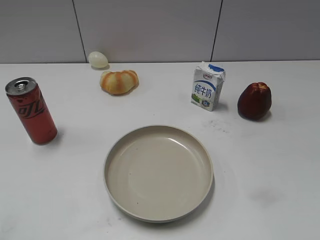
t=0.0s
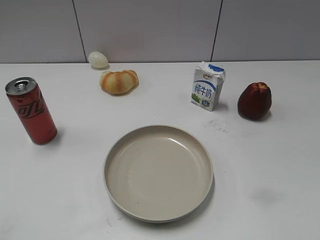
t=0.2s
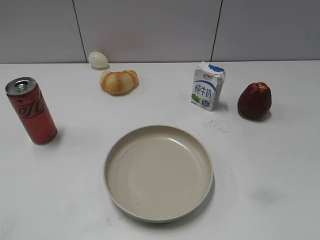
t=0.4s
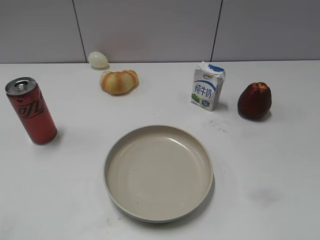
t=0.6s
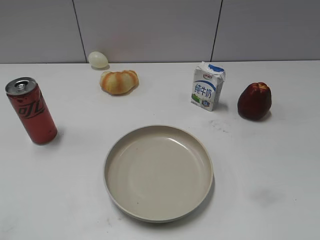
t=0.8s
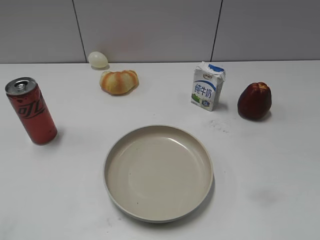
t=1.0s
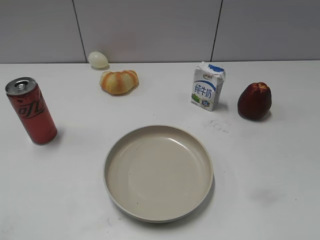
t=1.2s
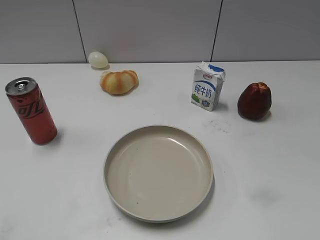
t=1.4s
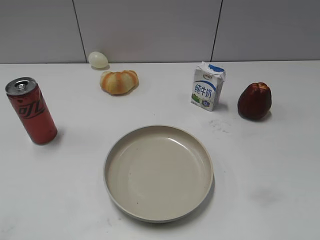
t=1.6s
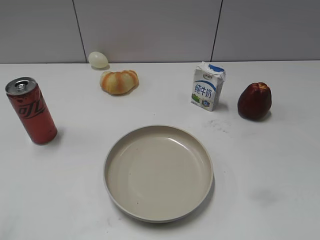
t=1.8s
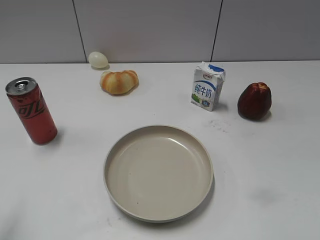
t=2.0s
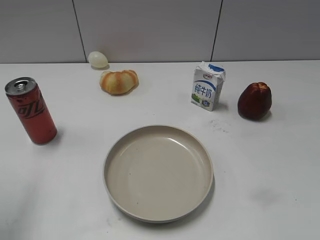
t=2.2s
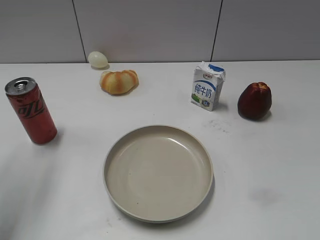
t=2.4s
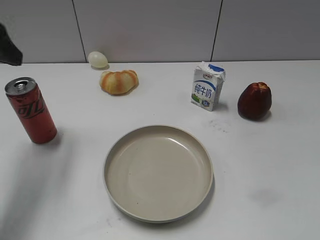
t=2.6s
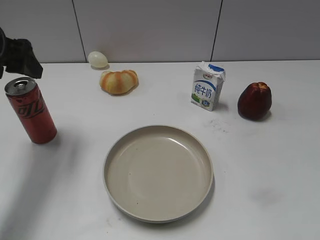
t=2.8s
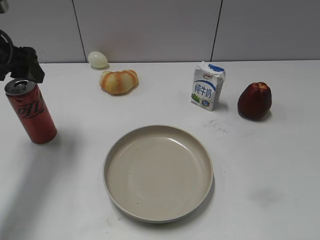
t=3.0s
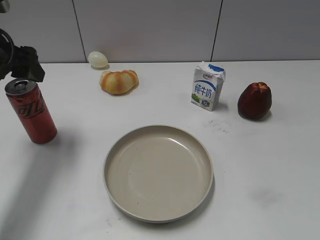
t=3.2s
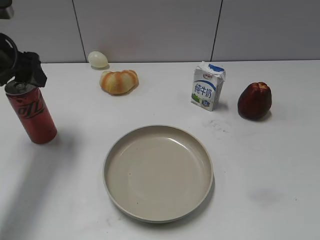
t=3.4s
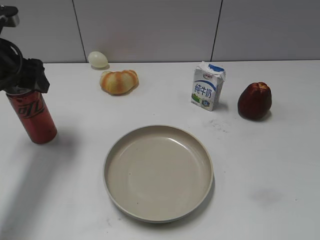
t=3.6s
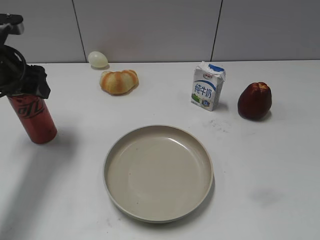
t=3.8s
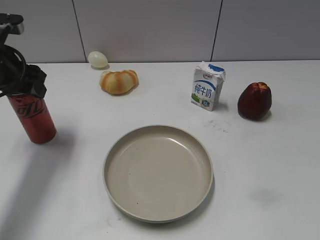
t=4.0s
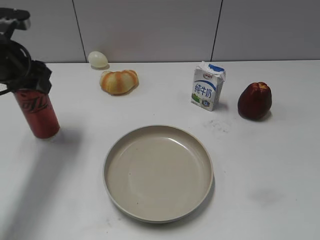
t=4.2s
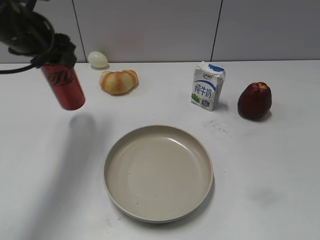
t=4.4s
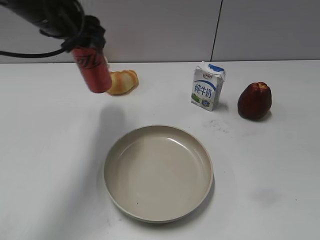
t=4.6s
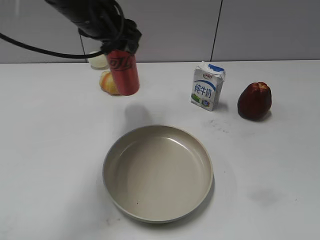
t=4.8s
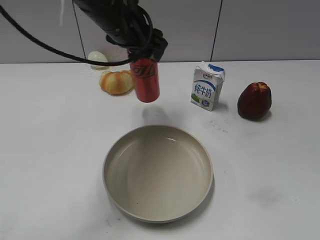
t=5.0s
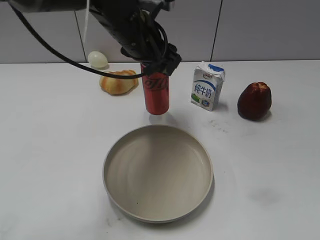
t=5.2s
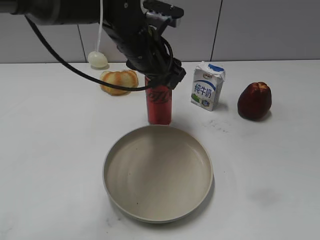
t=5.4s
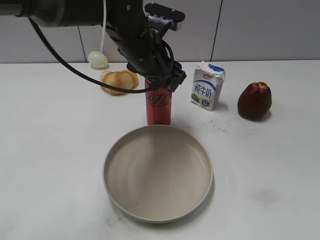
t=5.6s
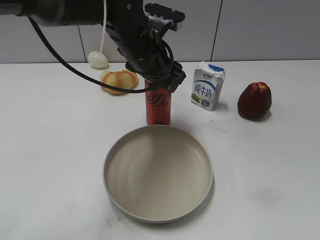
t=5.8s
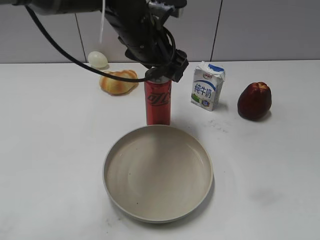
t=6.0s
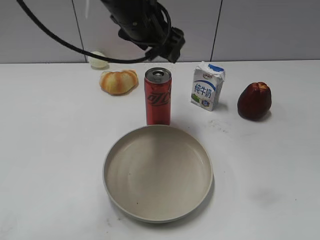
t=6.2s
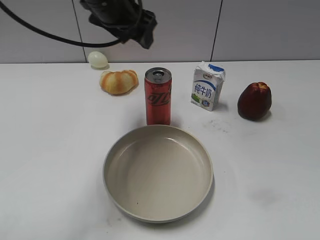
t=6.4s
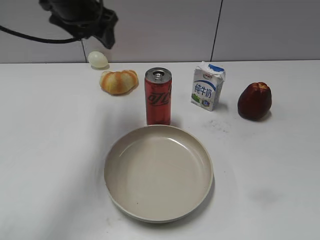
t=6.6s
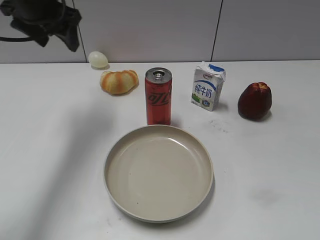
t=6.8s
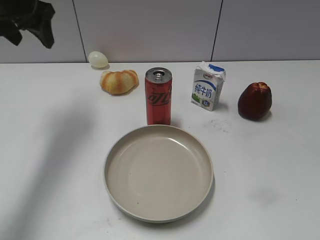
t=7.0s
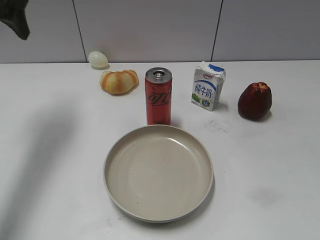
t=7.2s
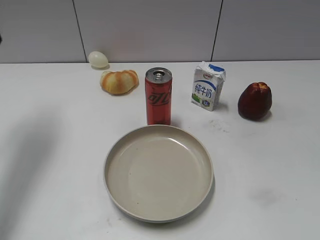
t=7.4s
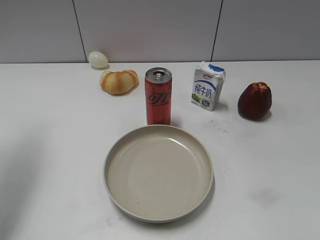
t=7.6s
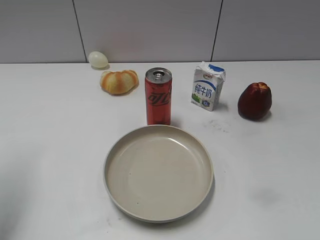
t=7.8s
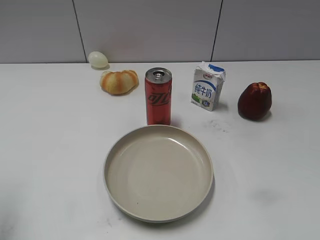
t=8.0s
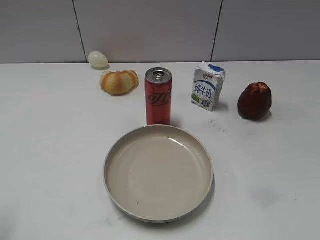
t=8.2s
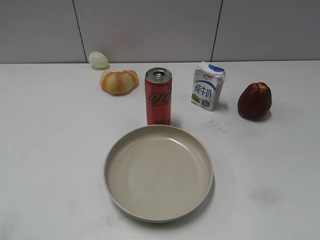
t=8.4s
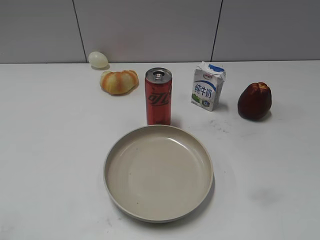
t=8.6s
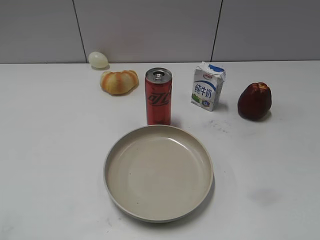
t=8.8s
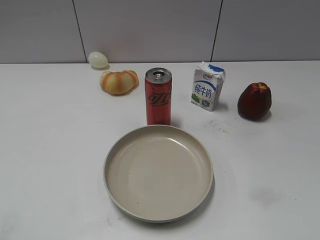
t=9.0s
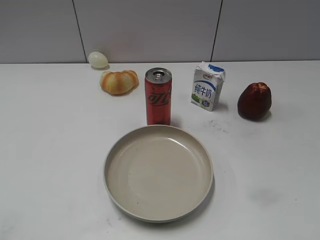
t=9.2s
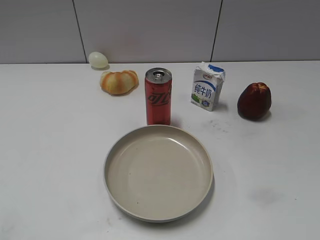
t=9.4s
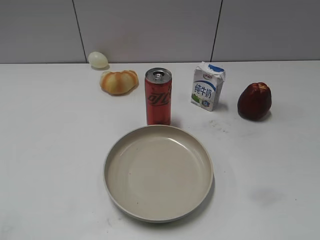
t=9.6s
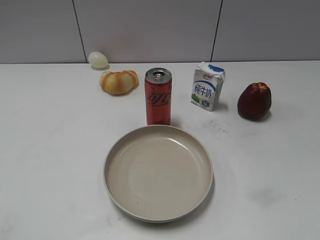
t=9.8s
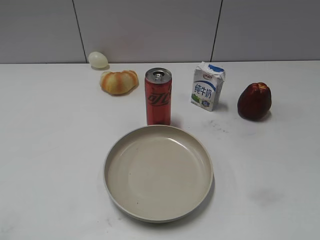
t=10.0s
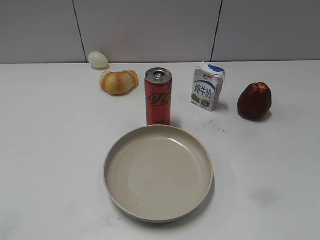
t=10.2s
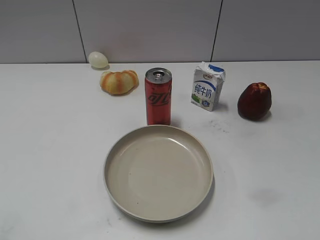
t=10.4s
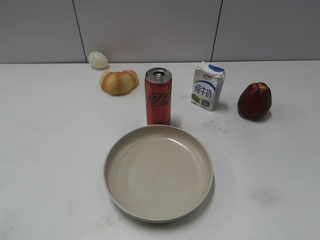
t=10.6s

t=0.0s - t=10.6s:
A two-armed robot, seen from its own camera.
Step, t=1.6s - t=4.0s: Grasp the cola with left gripper.
Step, t=4.2s - t=6.0s: Place the cola on the table with left gripper.
t=1.6s - t=3.0s: The left gripper travels forward by some 30 cm, and opens up.
t=3.0s - t=4.6s: The left gripper goes roughly 15 cm to the right, and closes up.
t=4.6s - t=6.0s: The left gripper goes roughly 10 cm to the right, and opens its fingers.
t=6.0s - t=7.6s: The left gripper heads to the left, covering approximately 30 cm.
t=7.6s - t=9.0s: The left gripper travels backward by roughly 25 cm.
t=9.0s - t=10.6s: The two grippers keep their place.

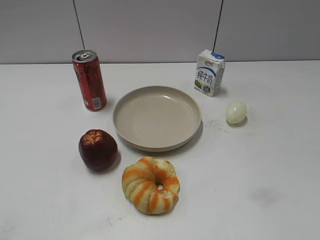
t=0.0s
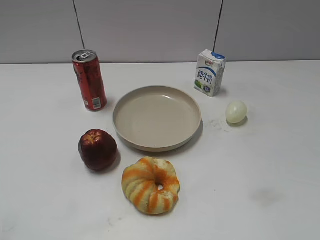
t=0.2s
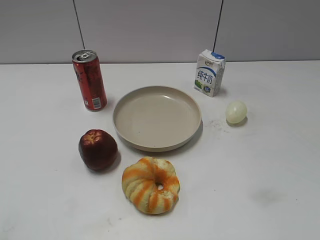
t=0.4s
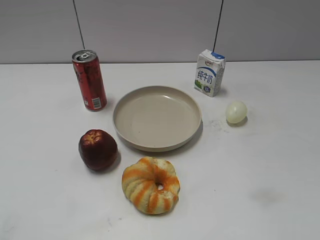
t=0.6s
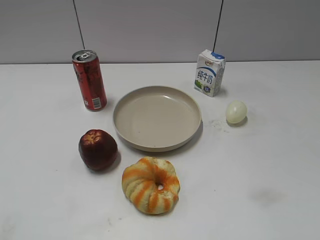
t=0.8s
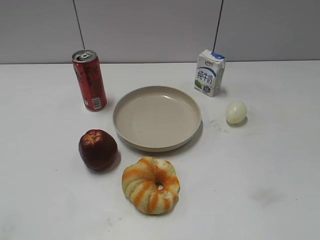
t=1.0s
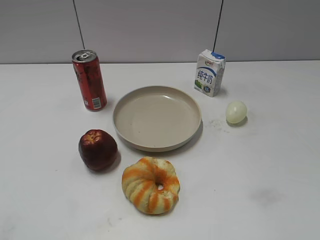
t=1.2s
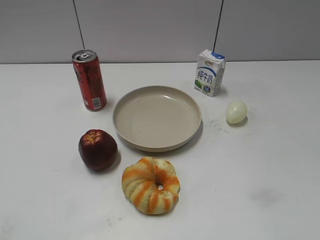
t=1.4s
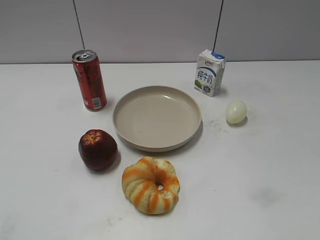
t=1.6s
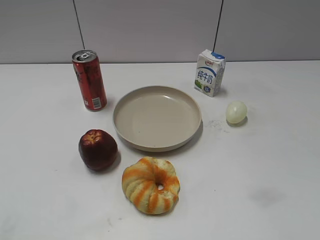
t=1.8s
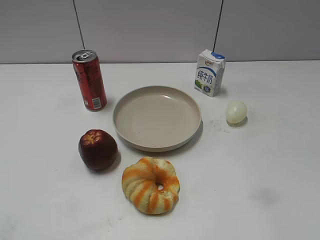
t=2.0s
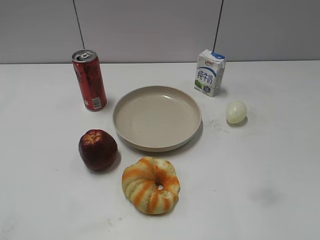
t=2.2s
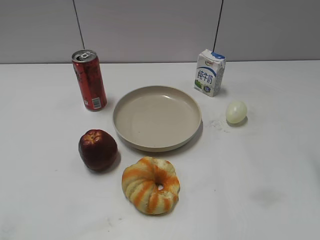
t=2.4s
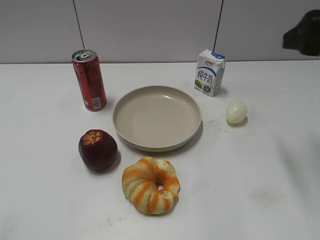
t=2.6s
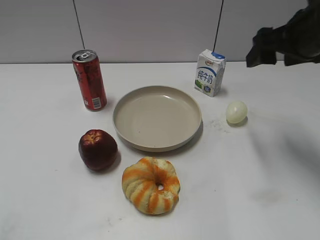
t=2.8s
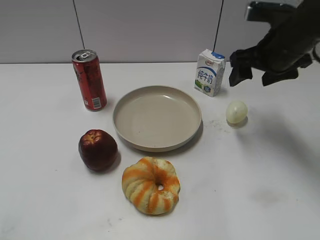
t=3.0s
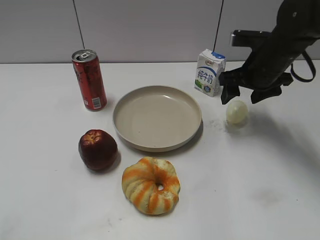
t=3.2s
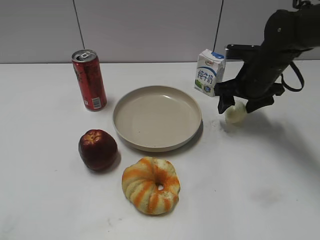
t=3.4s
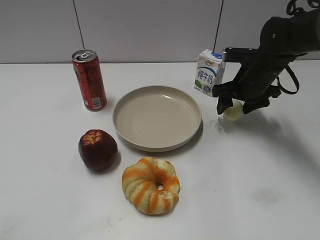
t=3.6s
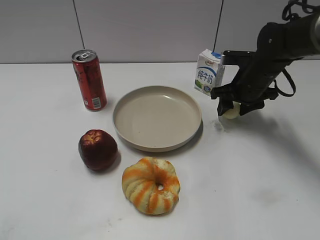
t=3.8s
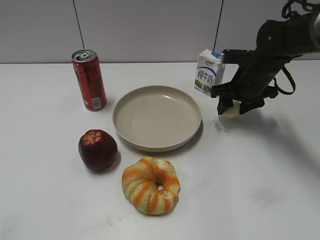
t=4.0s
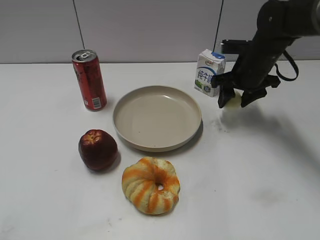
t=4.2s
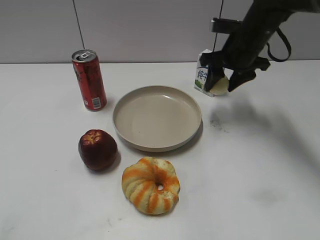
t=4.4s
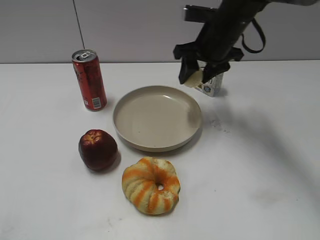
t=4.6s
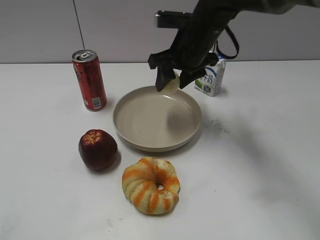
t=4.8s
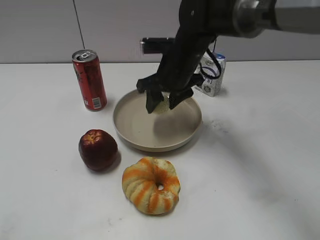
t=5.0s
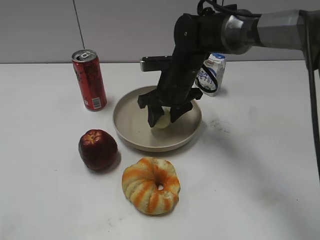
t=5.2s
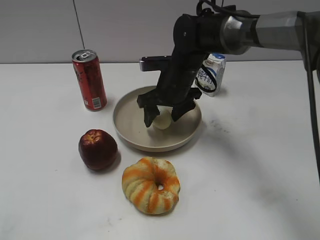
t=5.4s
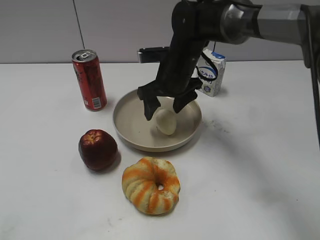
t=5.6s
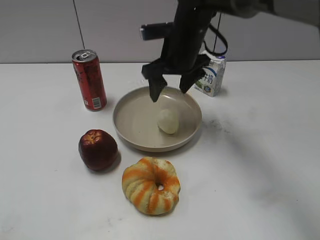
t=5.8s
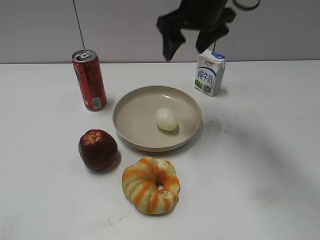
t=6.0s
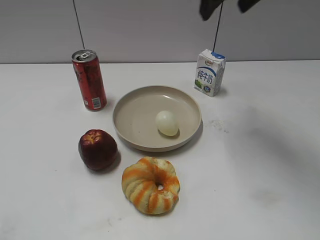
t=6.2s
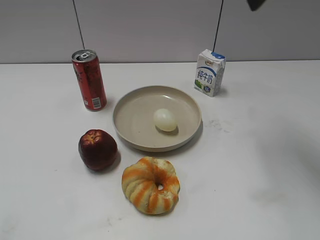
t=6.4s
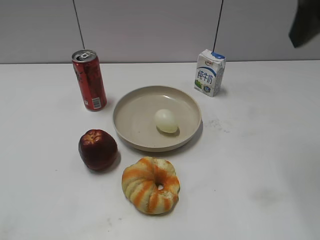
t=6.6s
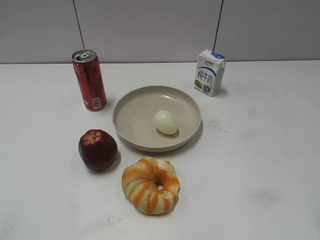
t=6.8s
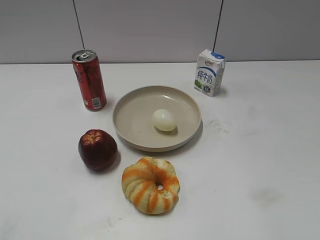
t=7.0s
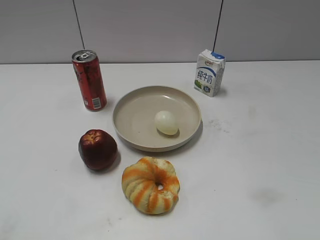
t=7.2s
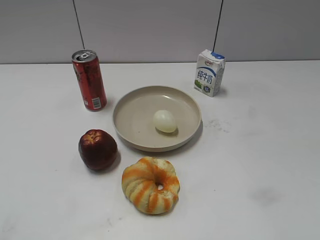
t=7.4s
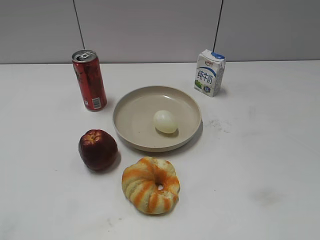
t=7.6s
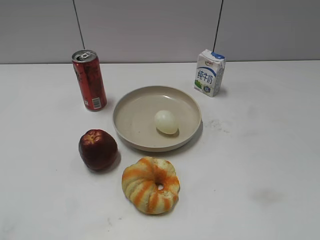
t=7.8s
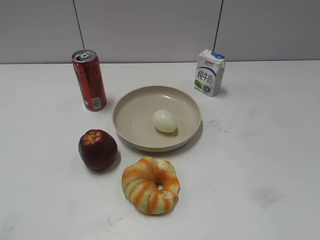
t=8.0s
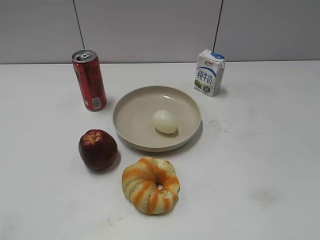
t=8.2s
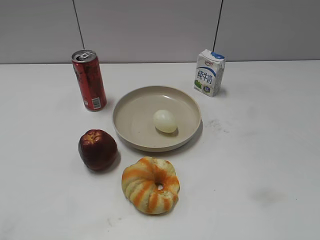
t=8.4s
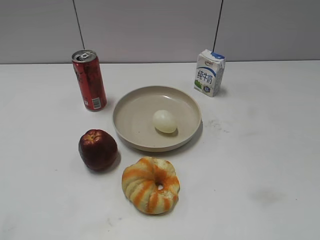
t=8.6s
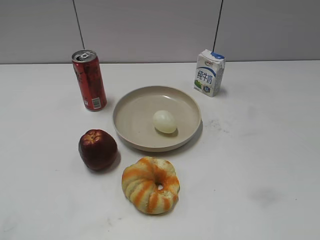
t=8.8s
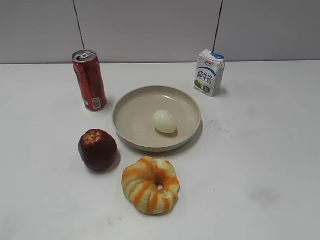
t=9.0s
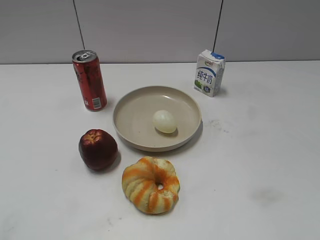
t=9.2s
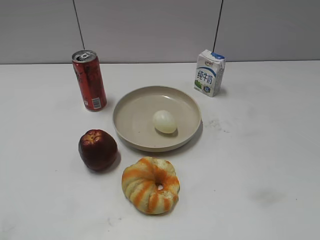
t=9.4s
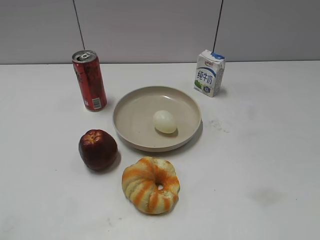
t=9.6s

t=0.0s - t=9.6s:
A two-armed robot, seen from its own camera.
Step, t=1.6s - t=4.0s: Grasp the egg with right gripper.
Step, t=4.2s - t=5.6s: Place the egg on the plate with right gripper.
t=1.6s - t=3.2s: The right gripper heads forward, covering some 40 cm, and opens its fingers.
t=3.2s - t=4.8s: The right gripper heads to the left, covering some 10 cm, and closes.
t=4.8s - t=6.4s: The right gripper heads upward and backward, covering about 20 cm, and opens its fingers.
t=6.4s - t=8.0s: The right gripper travels backward, to the right and downward by approximately 35 cm.

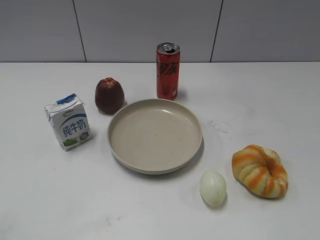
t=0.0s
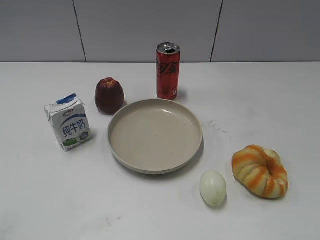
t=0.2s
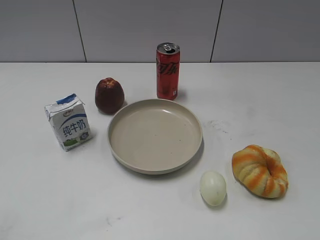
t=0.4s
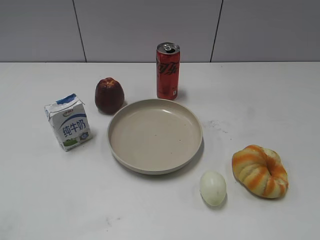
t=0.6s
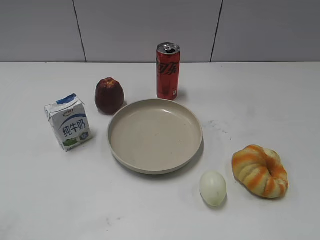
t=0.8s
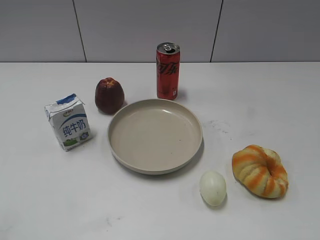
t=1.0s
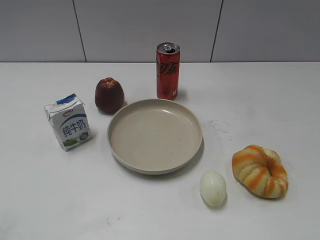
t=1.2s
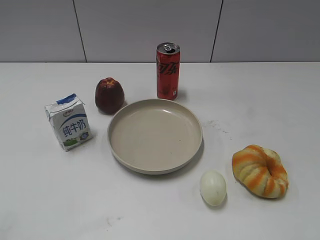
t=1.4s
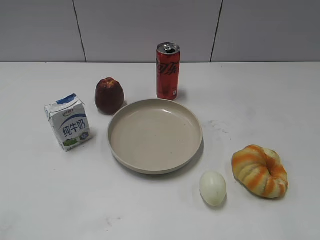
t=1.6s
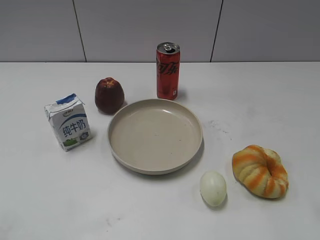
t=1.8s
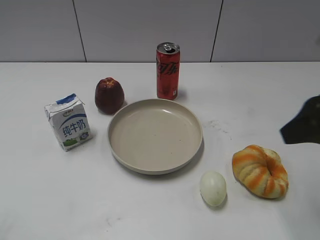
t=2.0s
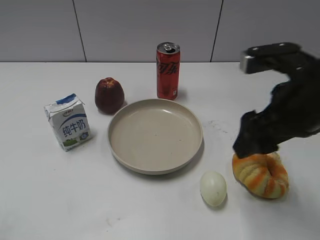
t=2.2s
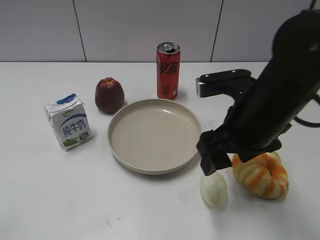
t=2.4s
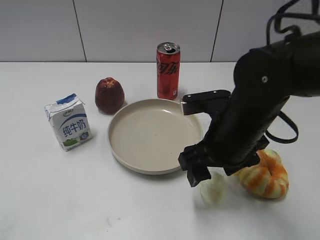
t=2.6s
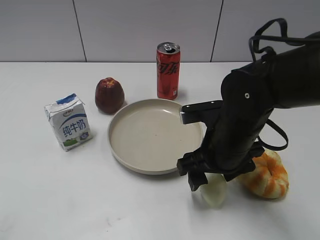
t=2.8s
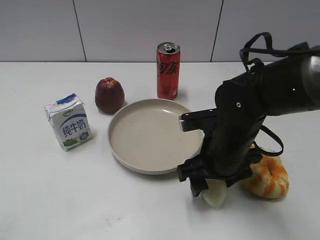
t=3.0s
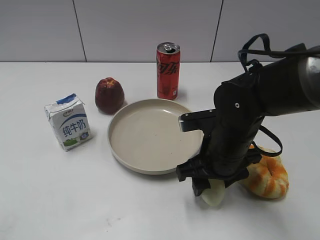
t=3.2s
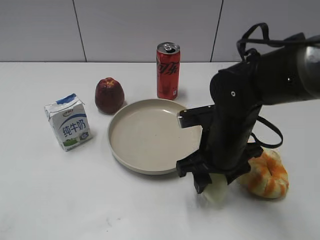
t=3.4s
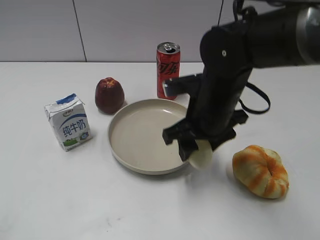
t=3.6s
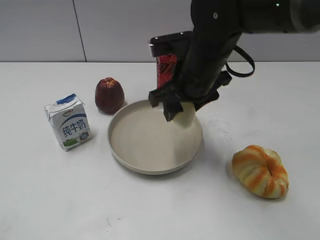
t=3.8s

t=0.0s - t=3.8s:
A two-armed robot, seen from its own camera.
Step, t=1.2s - t=3.0s: Grasp the egg with right gripper.
t=1.2s - t=2.6s: The right gripper moves forward, to the left and downward, about 35 cm.
t=2.6s - t=3.8s: The right gripper is displaced forward and to the left by some 10 cm, and closes its fingers.
